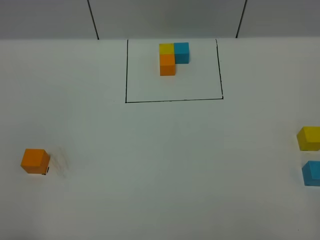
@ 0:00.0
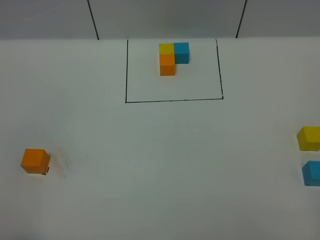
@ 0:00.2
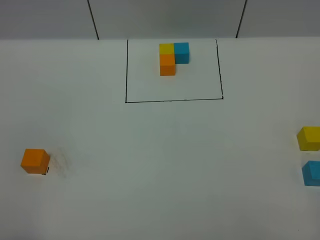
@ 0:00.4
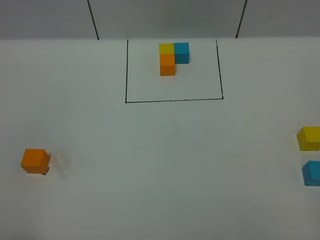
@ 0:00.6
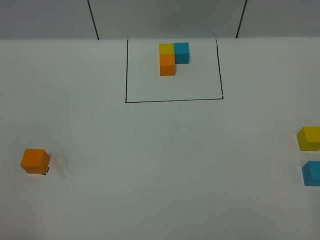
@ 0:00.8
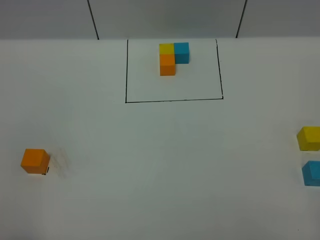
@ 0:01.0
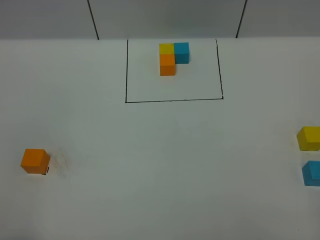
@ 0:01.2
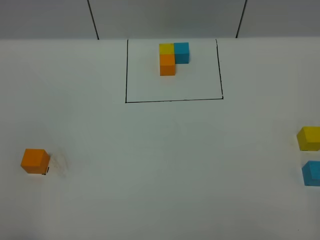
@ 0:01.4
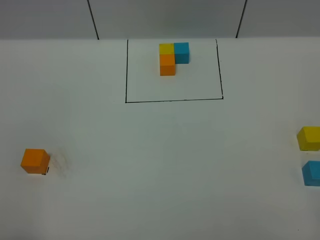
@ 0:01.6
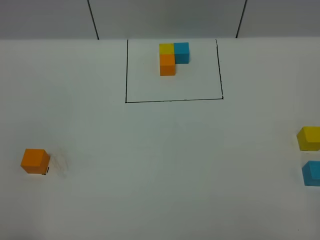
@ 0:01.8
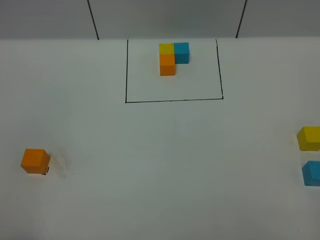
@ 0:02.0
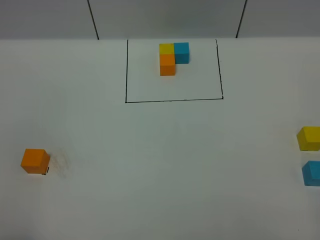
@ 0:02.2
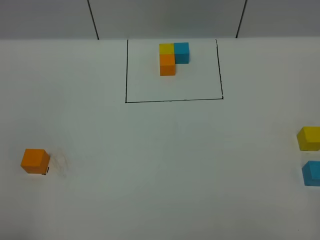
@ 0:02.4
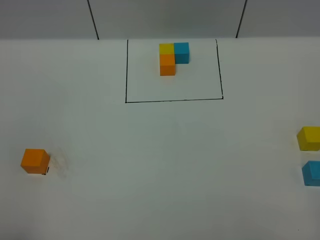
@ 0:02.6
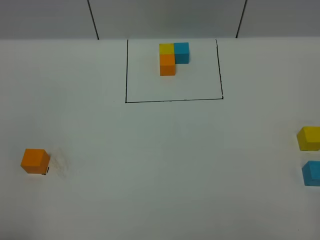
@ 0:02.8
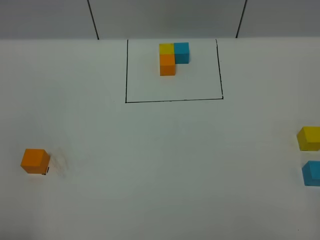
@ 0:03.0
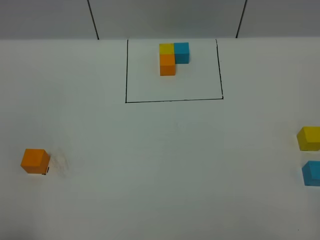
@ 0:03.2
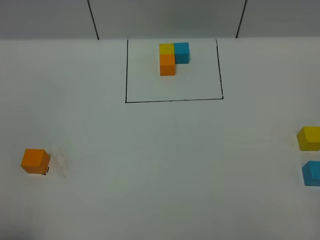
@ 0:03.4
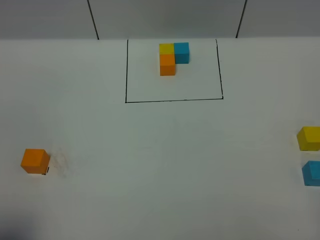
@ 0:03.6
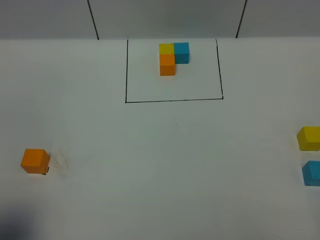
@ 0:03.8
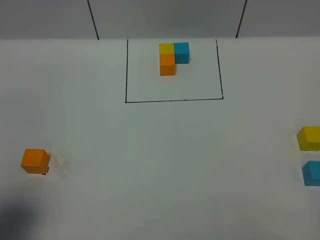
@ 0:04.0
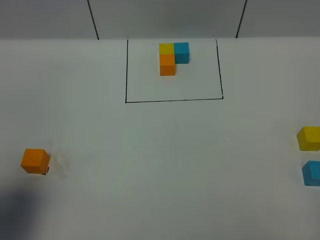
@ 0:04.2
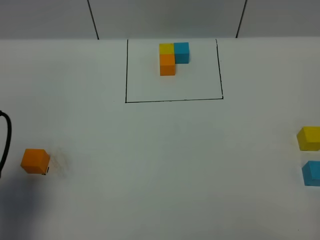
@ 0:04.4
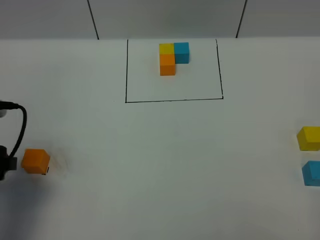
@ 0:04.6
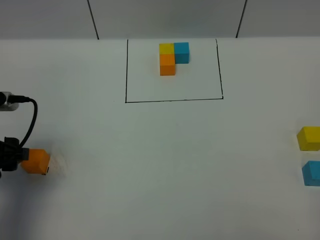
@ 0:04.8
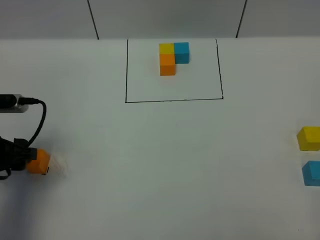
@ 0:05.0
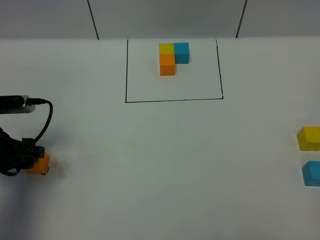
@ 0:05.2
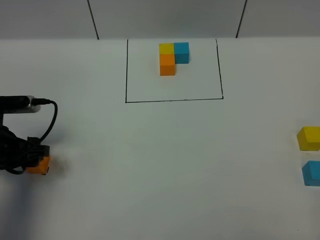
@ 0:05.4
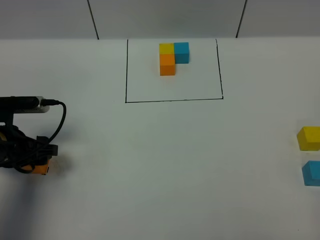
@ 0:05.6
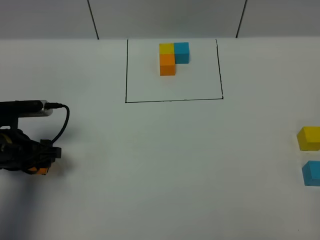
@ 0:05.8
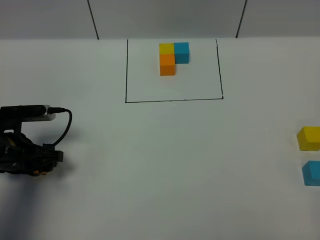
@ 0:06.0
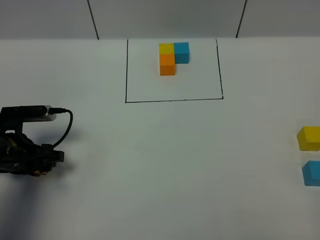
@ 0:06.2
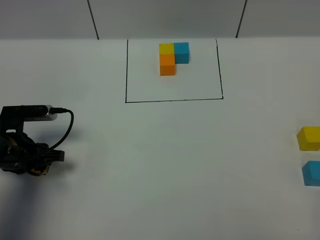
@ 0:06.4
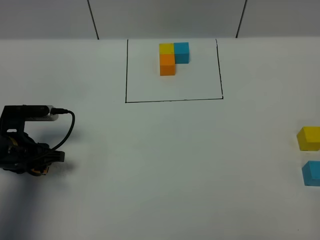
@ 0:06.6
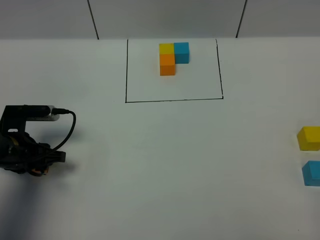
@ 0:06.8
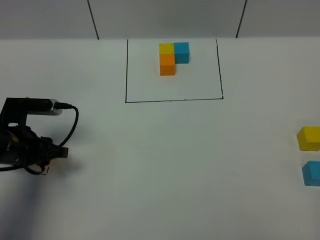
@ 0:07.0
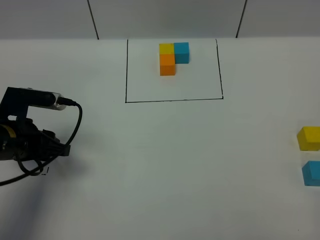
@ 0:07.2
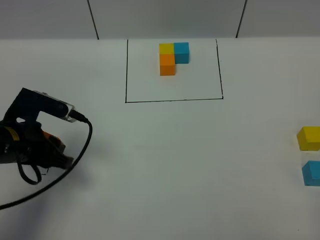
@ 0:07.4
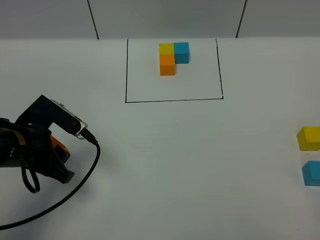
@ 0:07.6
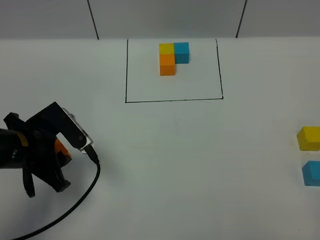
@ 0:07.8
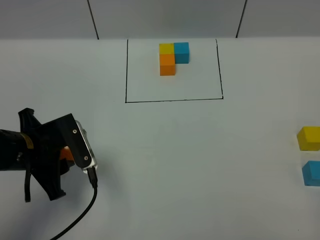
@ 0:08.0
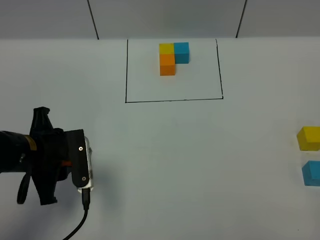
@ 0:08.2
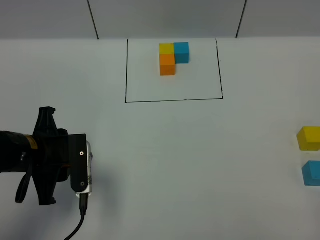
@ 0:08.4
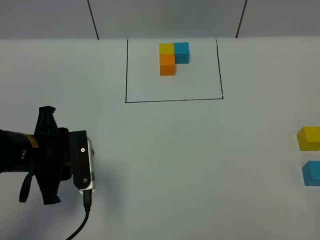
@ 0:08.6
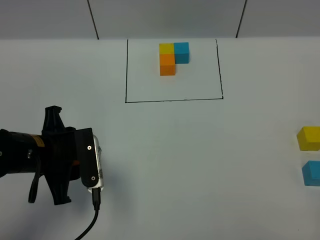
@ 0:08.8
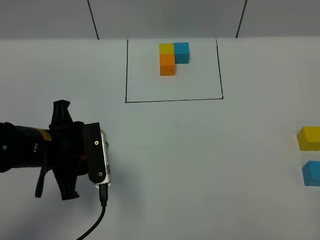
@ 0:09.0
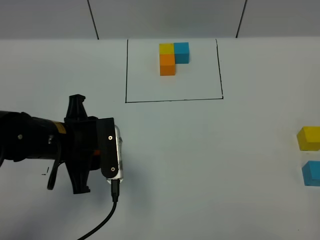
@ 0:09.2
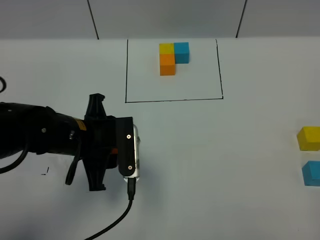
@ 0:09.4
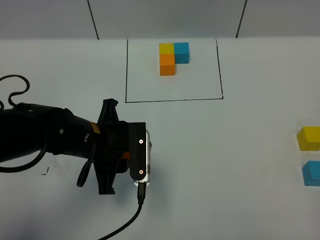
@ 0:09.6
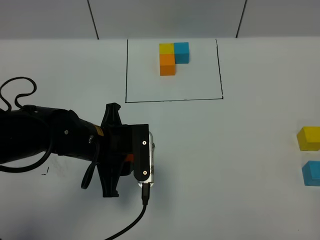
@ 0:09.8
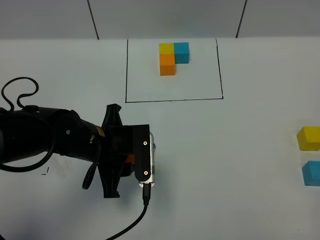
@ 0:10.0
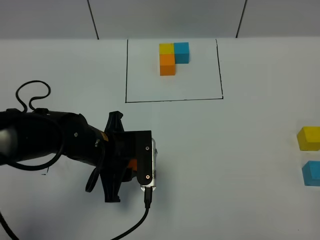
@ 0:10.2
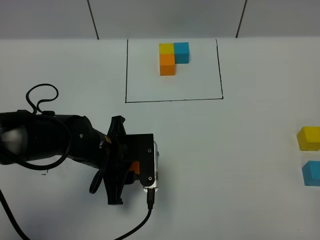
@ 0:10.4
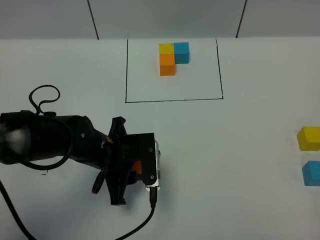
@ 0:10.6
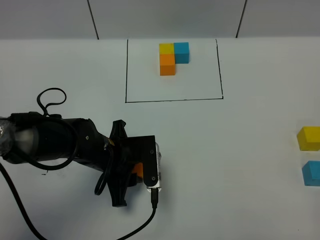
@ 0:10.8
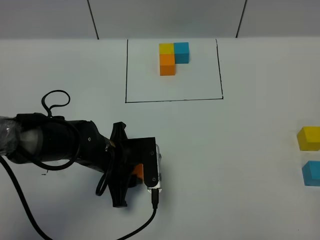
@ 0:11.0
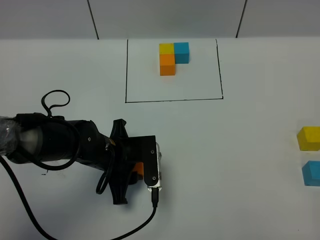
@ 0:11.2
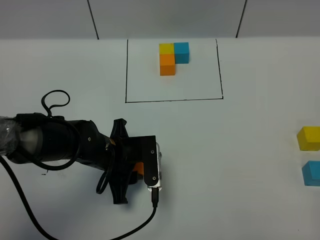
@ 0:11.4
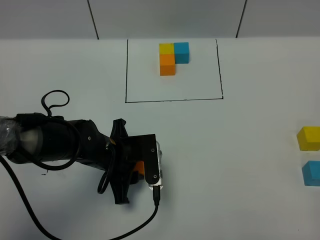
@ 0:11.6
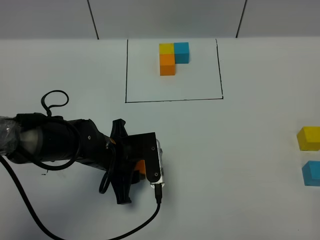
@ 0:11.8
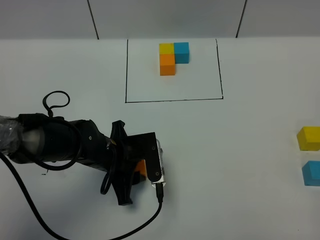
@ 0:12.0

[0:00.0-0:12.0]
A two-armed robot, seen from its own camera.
Task of the whole recording: According to the building block template in front, assemble the scattered blocks together.
0:00.0 to 0:01.6: The two grippers keep their place.
0:03.0 to 0:04.4: The left gripper moves forward, about 15 cm.
0:04.4 to 0:06.0: The left gripper heads downward and forward, covering approximately 15 cm.
0:06.0 to 0:07.6: The left gripper shifts about 10 cm upward and to the right, and closes.
0:07.6 to 0:09.0: The left gripper changes place by approximately 5 cm.
0:09.0 to 0:10.4: The left gripper travels to the right and downward by approximately 10 cm.
0:10.4 to 0:12.0: The grippers move only a little.

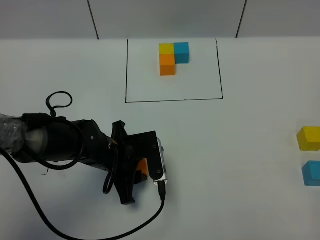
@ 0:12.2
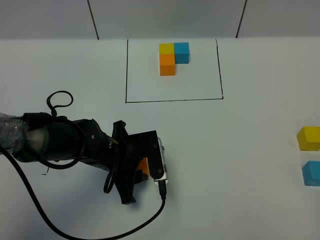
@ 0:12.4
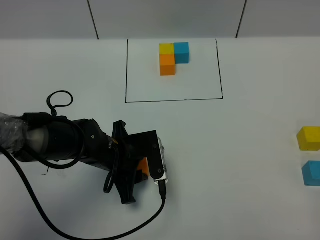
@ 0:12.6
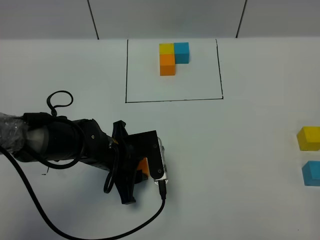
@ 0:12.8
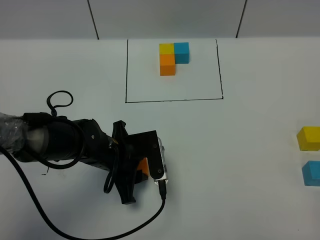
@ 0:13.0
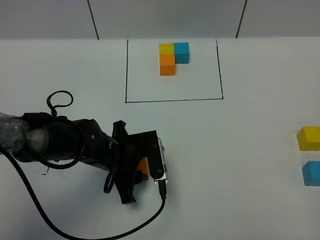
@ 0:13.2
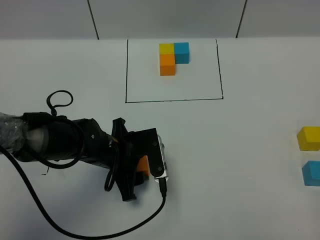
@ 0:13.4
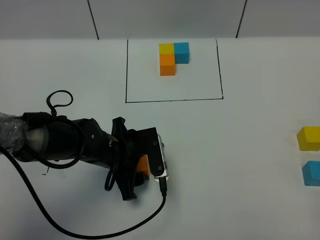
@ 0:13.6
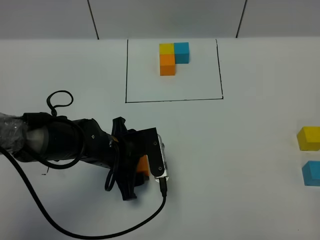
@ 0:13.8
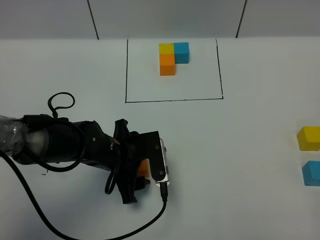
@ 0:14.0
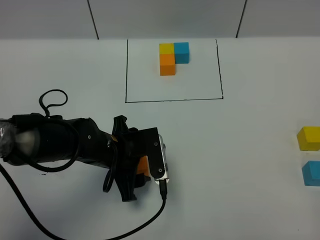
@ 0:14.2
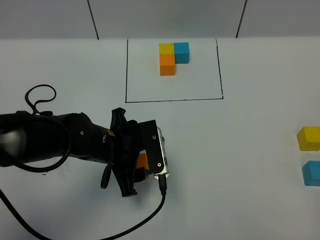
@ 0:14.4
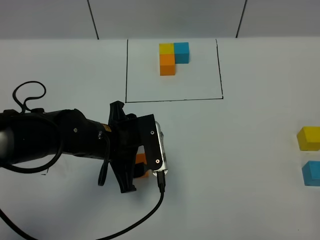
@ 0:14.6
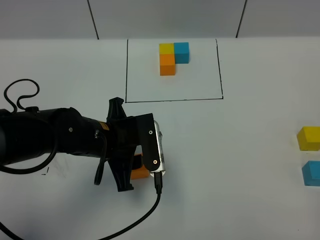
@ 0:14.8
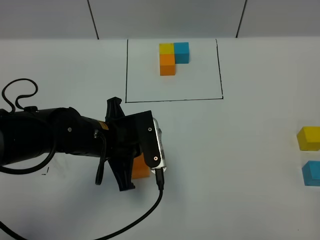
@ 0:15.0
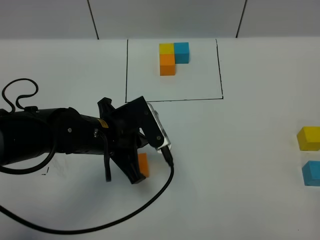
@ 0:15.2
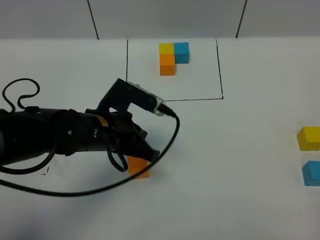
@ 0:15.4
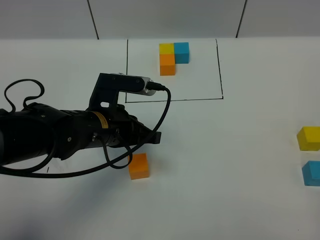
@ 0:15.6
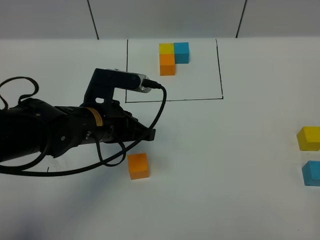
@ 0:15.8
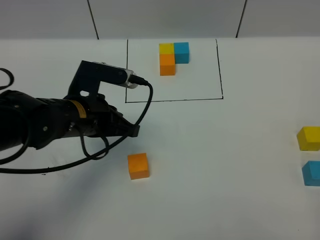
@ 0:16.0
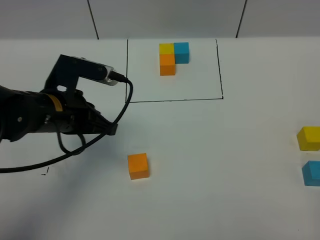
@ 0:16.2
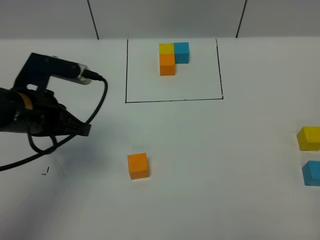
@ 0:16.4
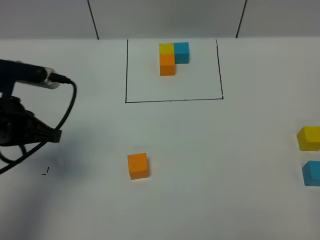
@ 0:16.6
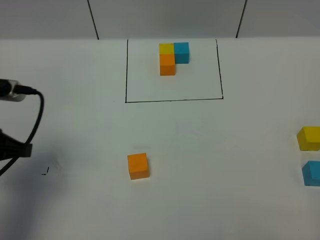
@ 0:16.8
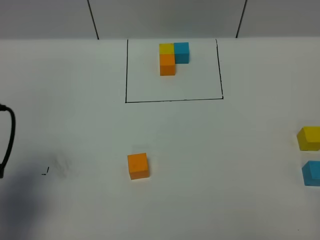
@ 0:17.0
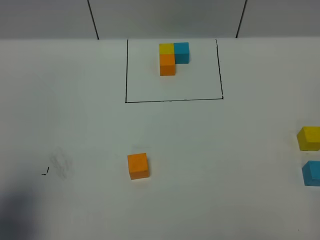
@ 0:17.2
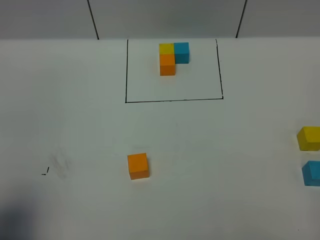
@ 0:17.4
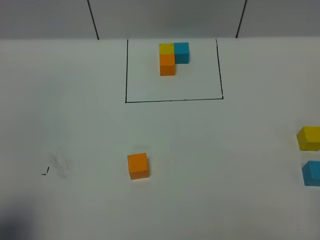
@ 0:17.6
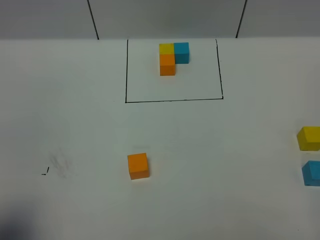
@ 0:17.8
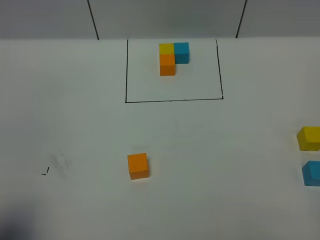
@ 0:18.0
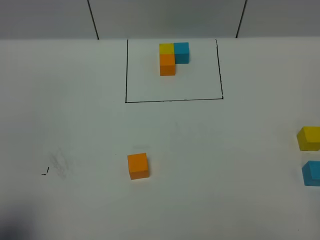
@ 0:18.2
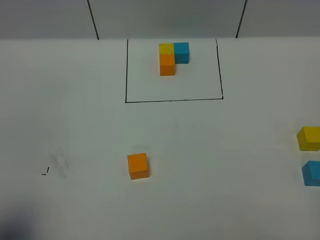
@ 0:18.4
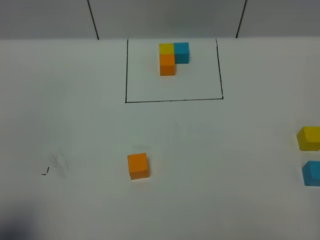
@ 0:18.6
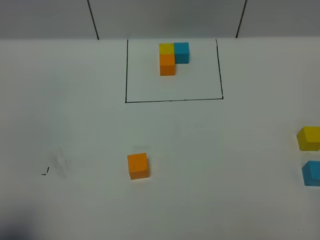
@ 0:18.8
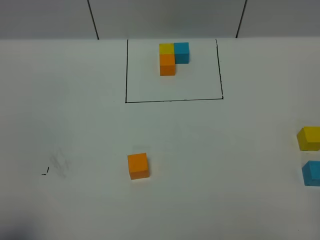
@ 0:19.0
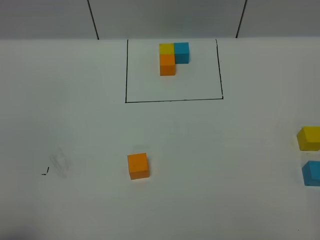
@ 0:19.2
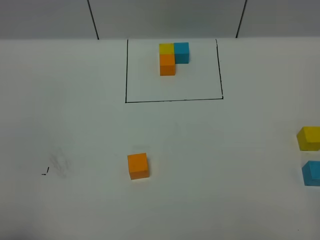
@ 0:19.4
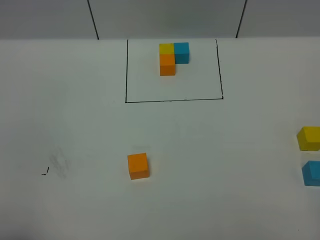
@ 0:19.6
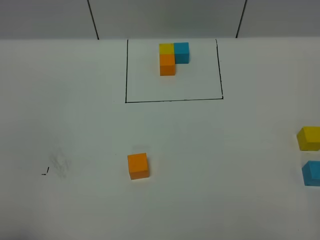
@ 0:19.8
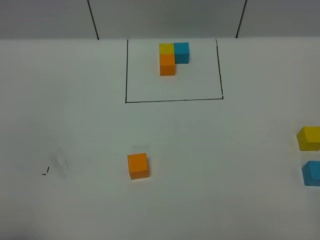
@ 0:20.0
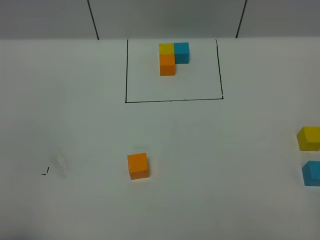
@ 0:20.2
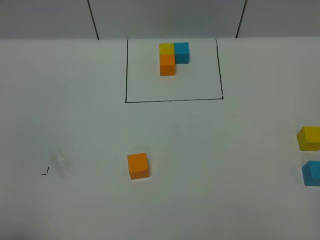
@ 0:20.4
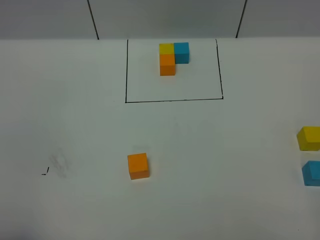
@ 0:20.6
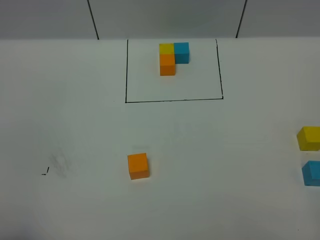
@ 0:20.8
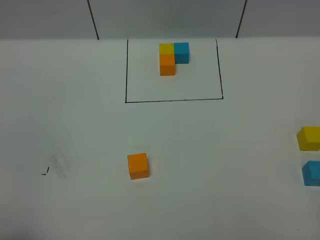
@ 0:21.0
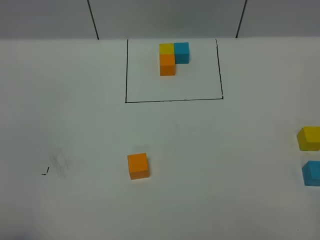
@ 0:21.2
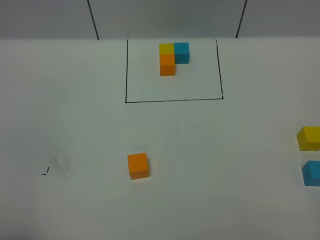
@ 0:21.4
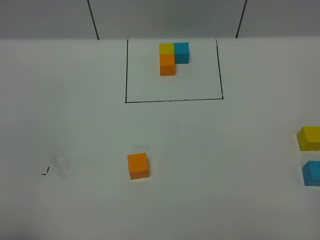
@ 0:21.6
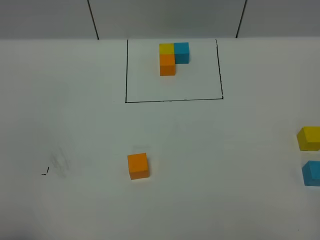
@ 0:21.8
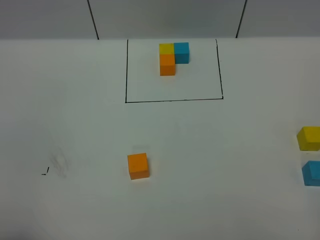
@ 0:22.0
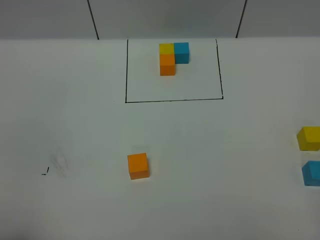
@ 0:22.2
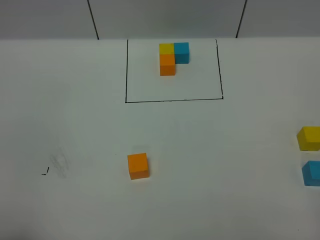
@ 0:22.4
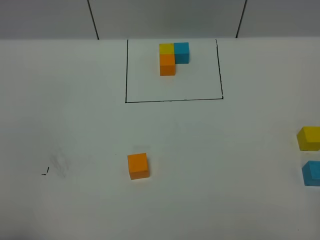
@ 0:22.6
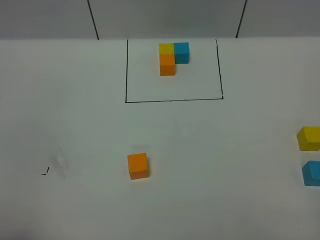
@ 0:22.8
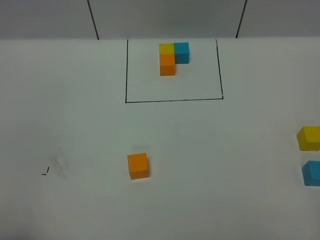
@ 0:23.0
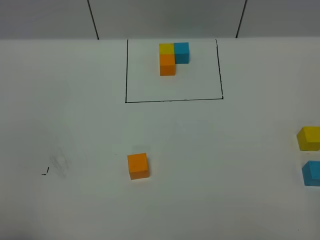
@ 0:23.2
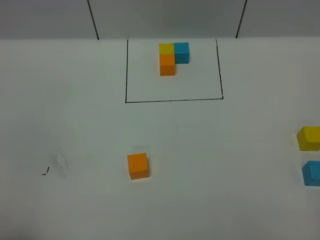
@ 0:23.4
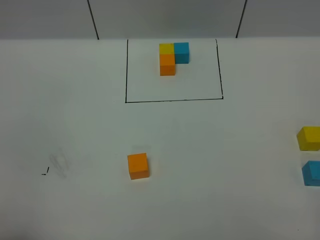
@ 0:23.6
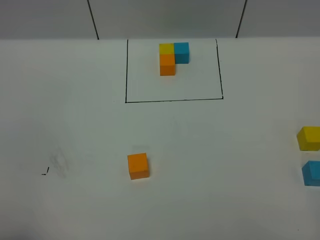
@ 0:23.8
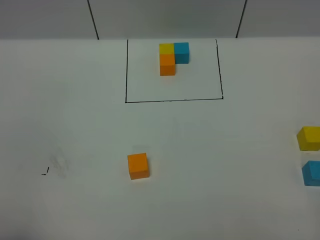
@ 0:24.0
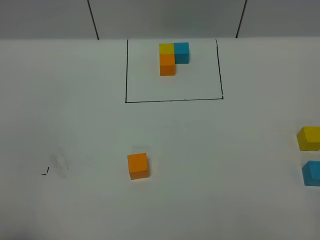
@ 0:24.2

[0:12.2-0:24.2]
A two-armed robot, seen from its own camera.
Task of the whole recording: According to the building block template in front, assemble the scattered blocks together.
Step, 0:12.2 to 0:16.0: Put the orange cube in the center of the table.
0:12.2 to 0:13.8: The two grippers keep their place.
0:13.8 to 0:15.2: The left gripper goes approximately 5 cm upward, and closes.
0:15.2 to 0:16.6: The left gripper is displaced to the left and upward by about 15 cm.
0:16.6 to 0:18.2: The left gripper moves backward, some 15 cm.
0:18.2 to 0:19.8: The left gripper goes approximately 5 cm backward.
0:19.8 to 0:22.6: Both grippers stay put.
